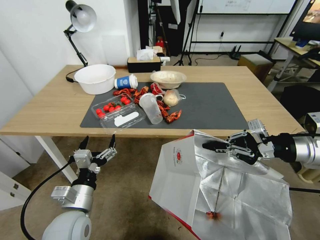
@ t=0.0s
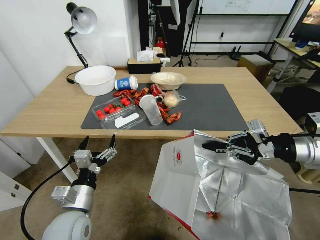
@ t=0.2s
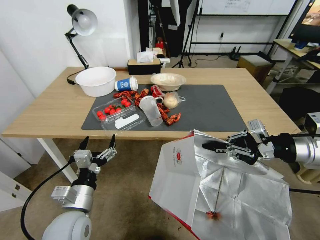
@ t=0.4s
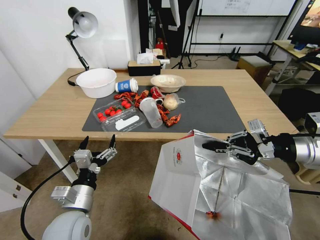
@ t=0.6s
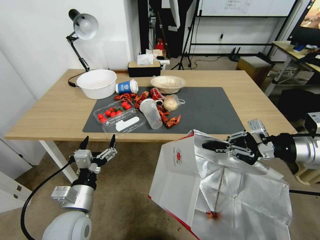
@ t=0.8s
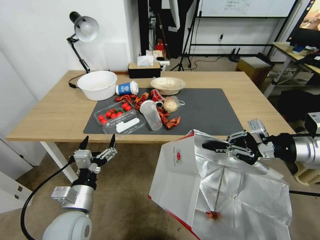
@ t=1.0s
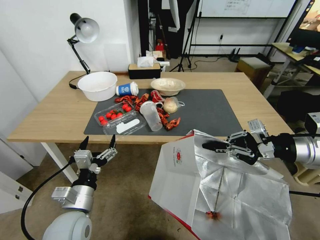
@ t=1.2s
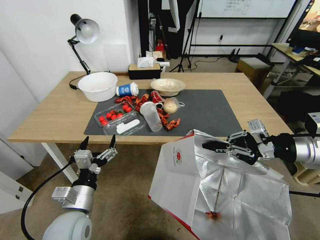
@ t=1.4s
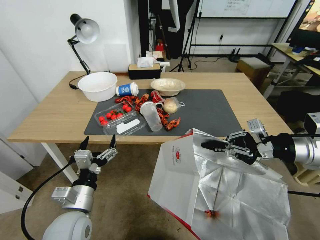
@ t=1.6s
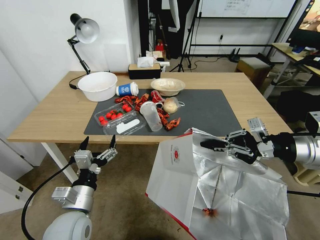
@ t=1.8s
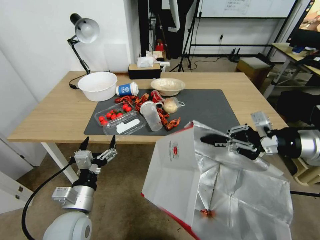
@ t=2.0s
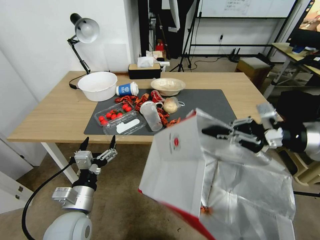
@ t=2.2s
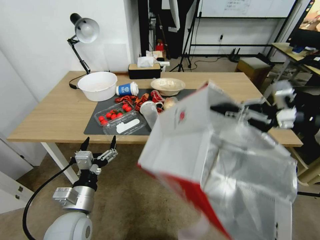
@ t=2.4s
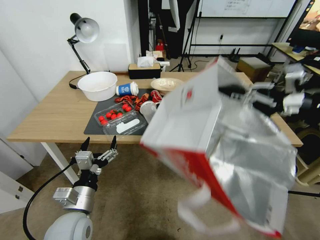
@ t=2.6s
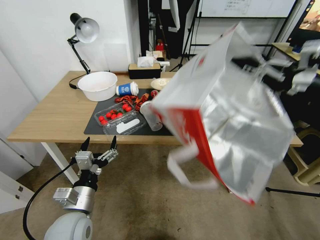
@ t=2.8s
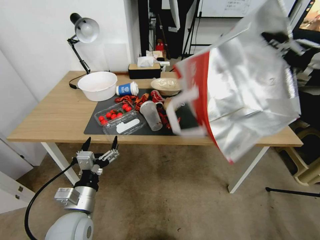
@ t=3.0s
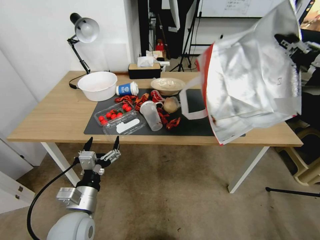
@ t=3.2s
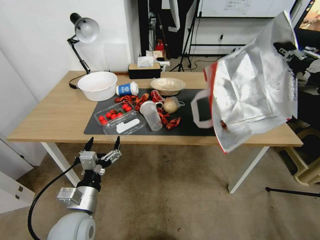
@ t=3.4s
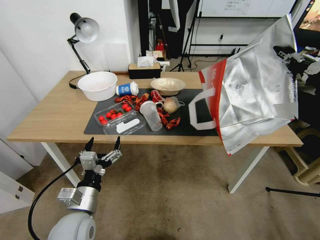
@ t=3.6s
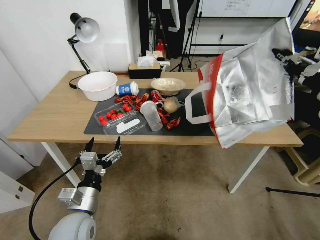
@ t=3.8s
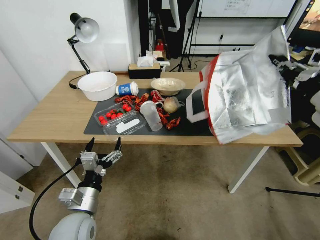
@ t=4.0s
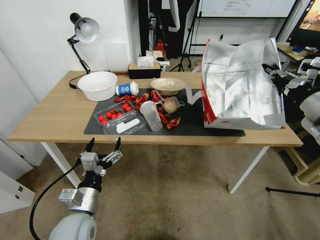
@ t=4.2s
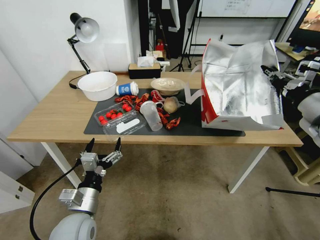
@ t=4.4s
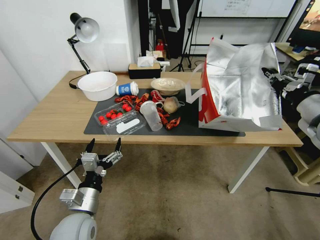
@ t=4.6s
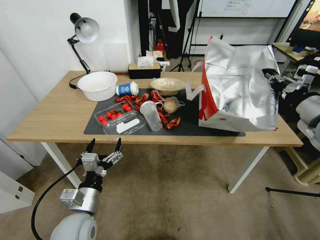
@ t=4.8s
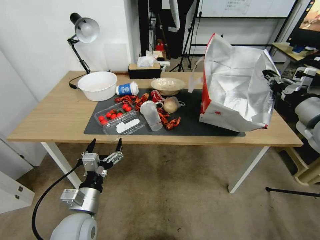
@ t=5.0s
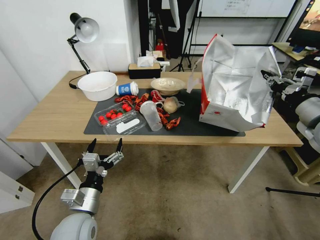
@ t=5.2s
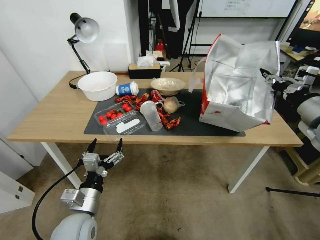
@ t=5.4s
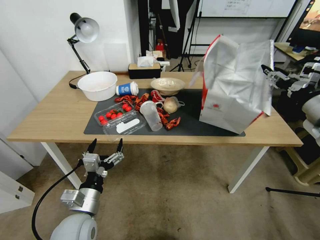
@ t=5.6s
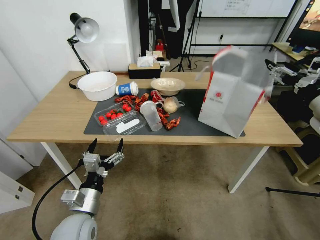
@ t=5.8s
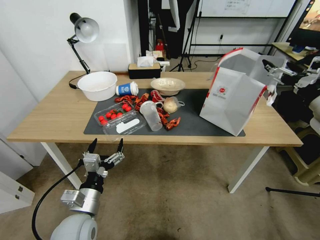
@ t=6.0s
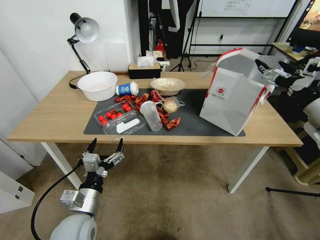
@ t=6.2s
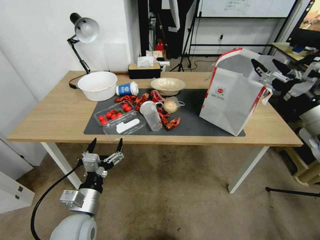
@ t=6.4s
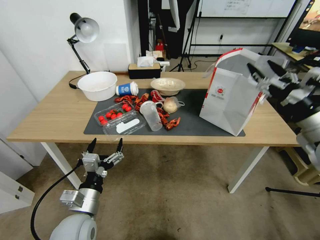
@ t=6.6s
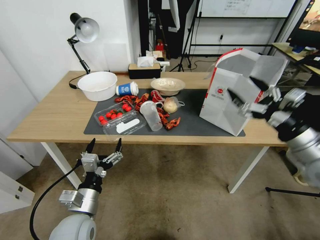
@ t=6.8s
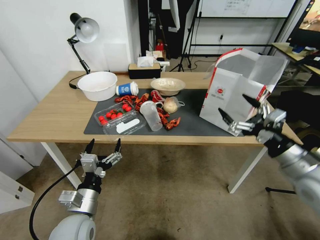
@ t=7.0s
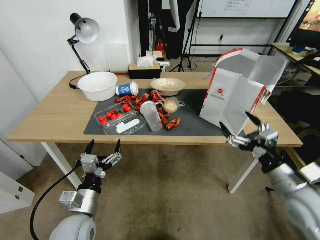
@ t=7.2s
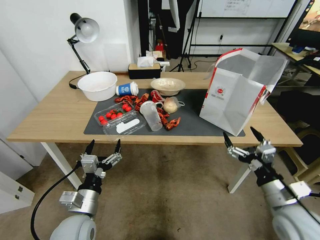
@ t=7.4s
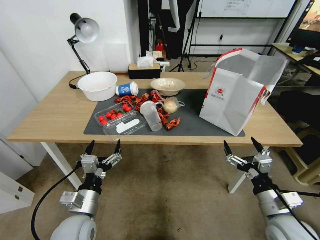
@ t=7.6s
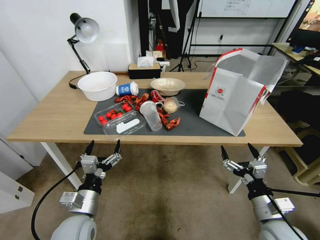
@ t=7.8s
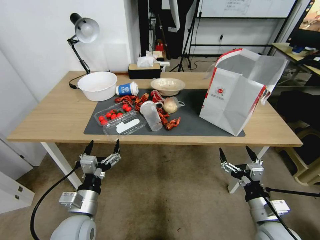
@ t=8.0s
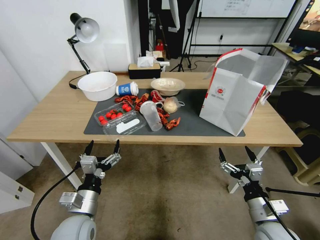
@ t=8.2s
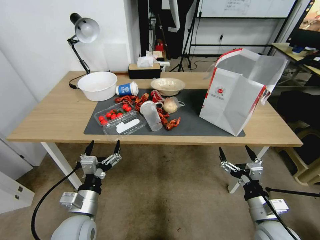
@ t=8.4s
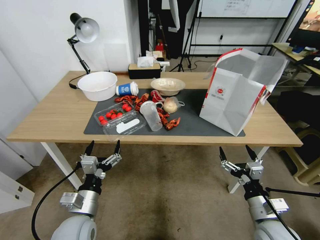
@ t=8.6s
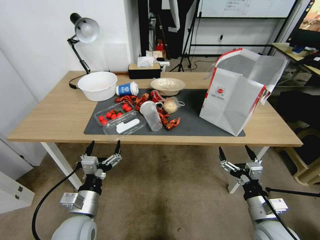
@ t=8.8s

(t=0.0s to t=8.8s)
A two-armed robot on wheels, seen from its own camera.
Task of the whole recording: Pick up the food delivery bag from the floor and place it on the table.
t=1.4s - t=3.0s: The right gripper heads upward, covering some 10 cm.
t=3.0s - t=4.4s: The right gripper moves downward, some 5 cm.
t=4.4s - t=5.8s: The right gripper opens up.
t=5.8s - t=7.4s: The right gripper shifts some 25 cm downward, backward and to the left.
t=7.4s - t=8.8s: The right gripper travels downward by roughly 5 cm.
